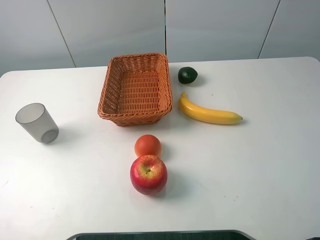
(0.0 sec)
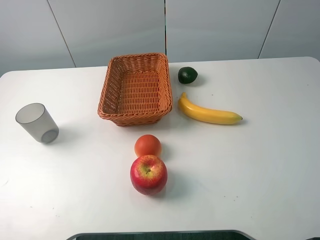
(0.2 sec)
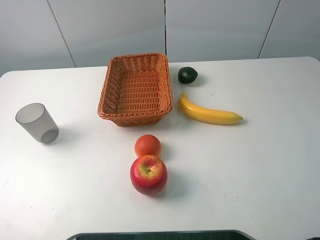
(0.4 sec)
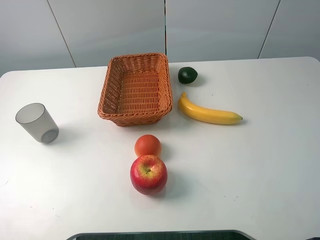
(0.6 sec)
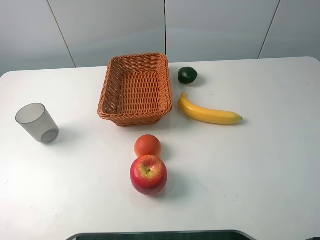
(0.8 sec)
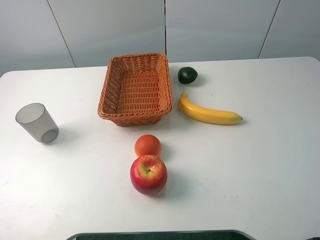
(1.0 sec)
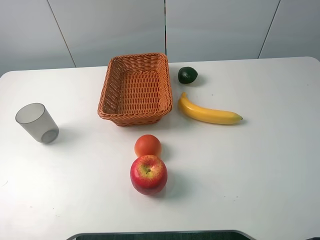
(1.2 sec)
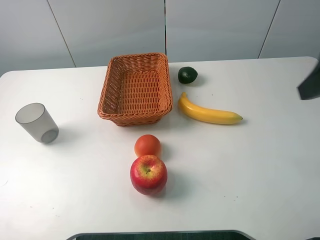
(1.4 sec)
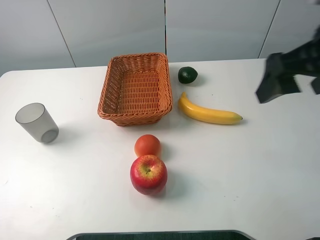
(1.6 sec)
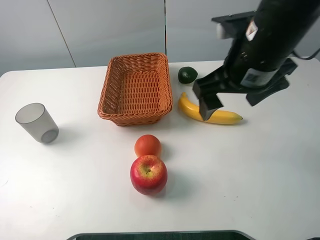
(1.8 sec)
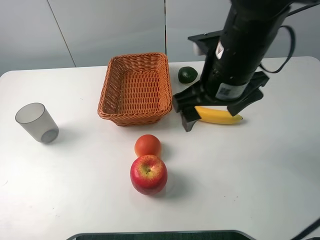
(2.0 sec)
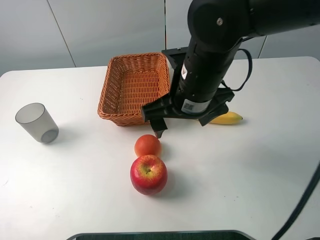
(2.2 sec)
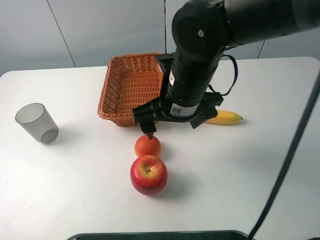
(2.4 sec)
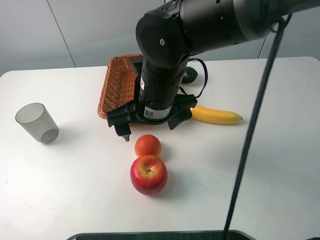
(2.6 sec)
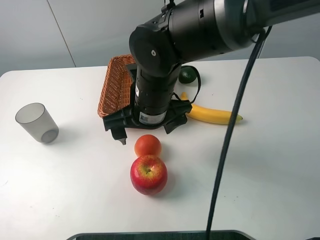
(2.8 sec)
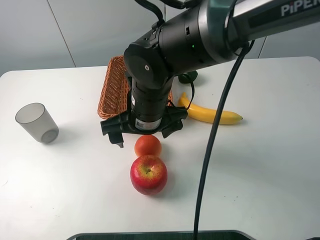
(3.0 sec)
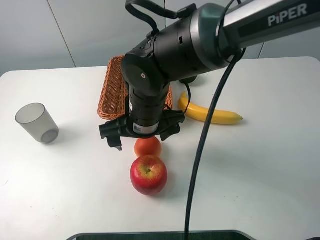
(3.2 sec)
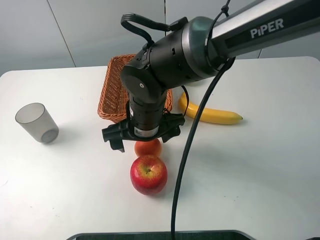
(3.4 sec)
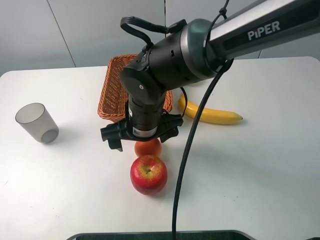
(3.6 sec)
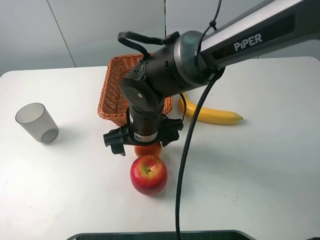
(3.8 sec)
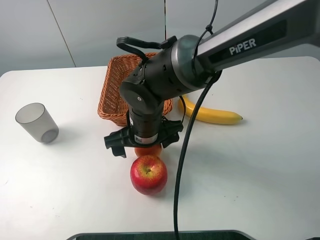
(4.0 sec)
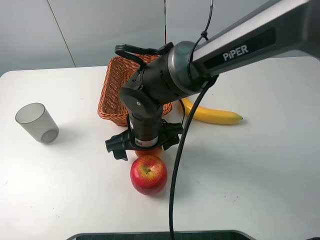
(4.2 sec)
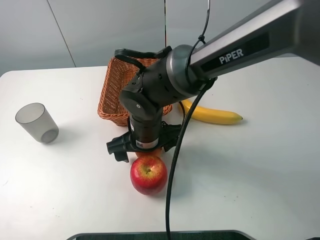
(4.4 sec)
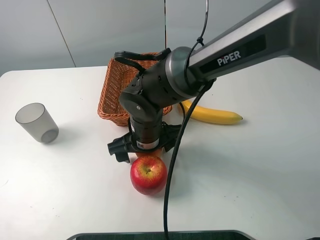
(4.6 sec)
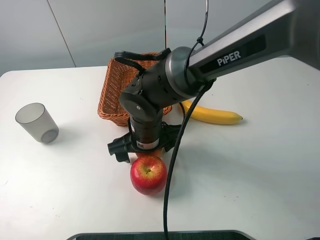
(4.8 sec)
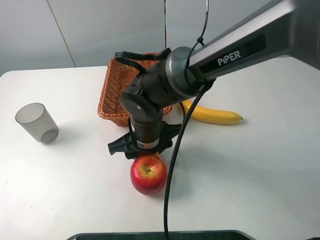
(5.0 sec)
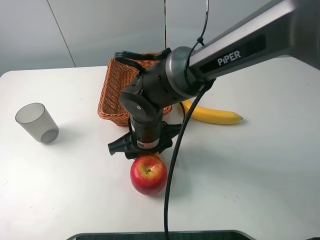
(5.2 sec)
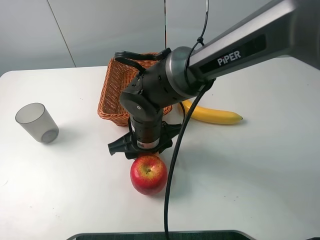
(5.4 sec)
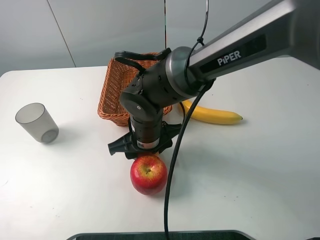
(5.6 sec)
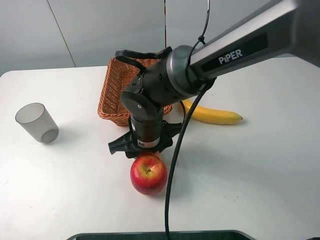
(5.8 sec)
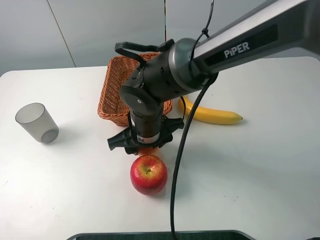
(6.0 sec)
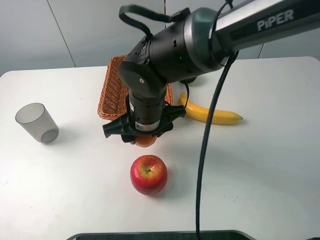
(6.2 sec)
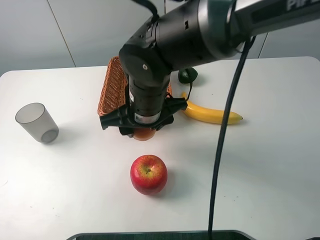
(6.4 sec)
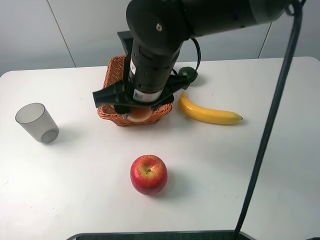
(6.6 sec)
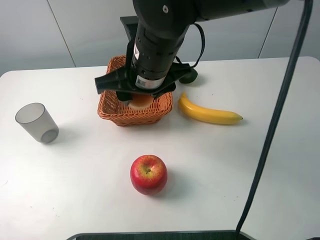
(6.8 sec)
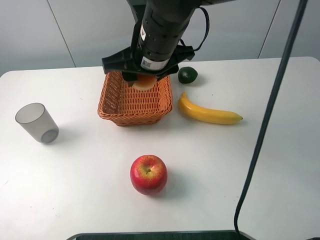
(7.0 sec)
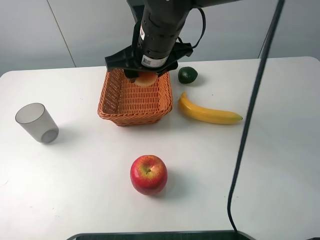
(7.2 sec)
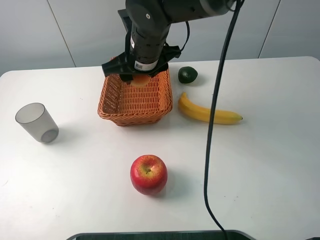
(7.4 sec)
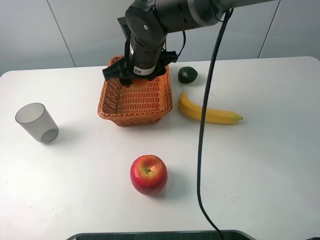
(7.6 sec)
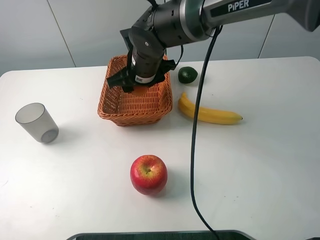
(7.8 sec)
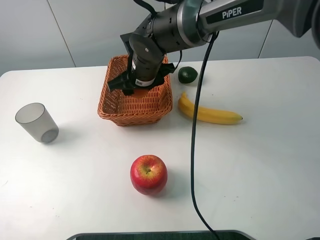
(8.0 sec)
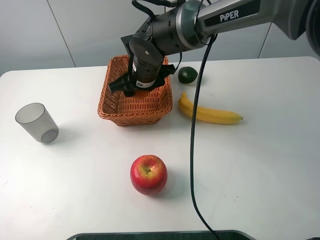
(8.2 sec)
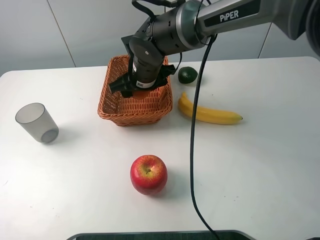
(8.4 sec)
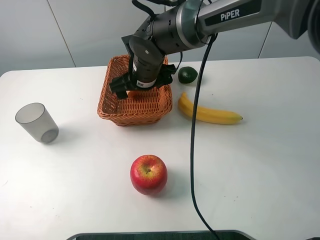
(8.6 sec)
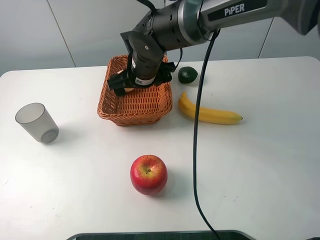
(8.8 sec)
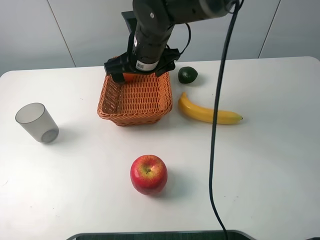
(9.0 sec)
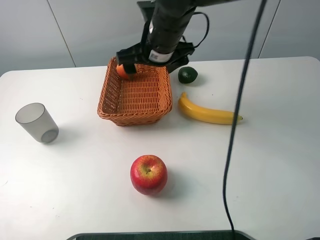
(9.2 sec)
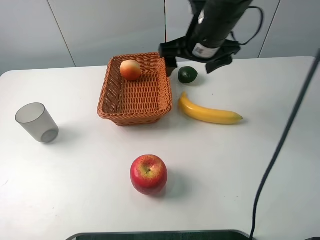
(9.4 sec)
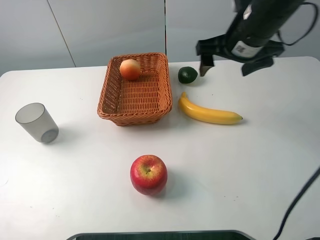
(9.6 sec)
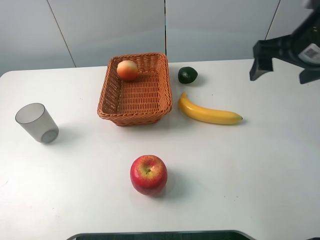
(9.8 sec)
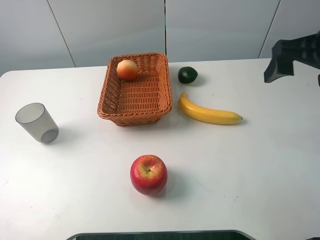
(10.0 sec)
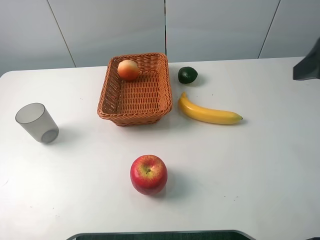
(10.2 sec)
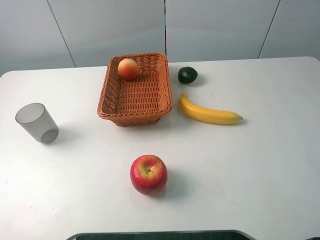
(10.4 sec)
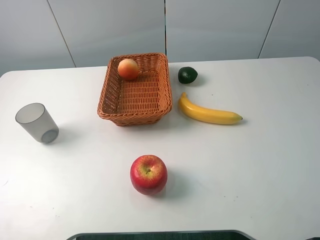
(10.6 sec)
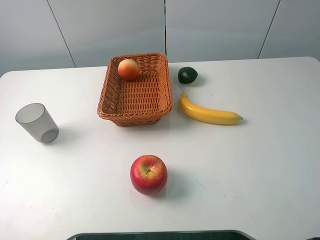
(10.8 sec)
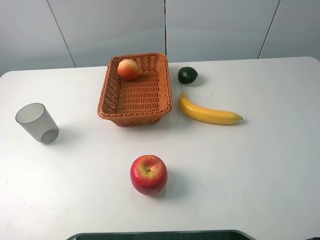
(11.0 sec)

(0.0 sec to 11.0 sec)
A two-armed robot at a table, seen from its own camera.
0.0 sec - 1.6 sec: The right gripper moves forward and to the left, some 20 cm.
1.6 sec - 3.2 sec: The right gripper is displaced to the left and downward by about 25 cm.
3.2 sec - 4.8 sec: The right gripper is displaced downward by approximately 5 cm.
4.8 sec - 6.2 sec: The right gripper shifts some 5 cm upward, and closes.
6.2 sec - 7.8 sec: The right gripper travels forward by some 10 cm.
7.8 sec - 9.4 sec: The right gripper heads to the right and upward, covering some 15 cm, and opens its fingers.
9.4 sec - 11.0 sec: The right gripper travels backward and to the right by about 35 cm.

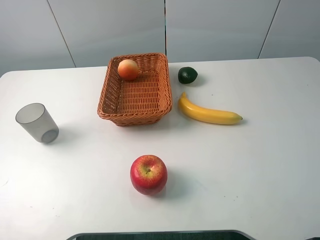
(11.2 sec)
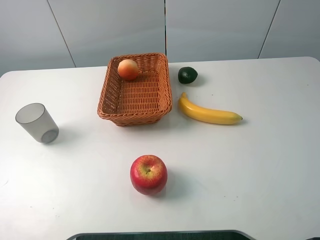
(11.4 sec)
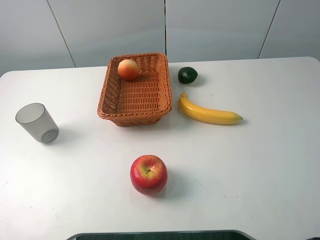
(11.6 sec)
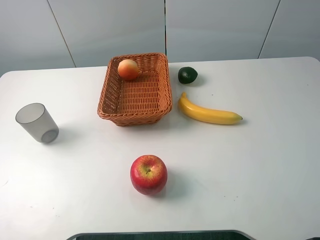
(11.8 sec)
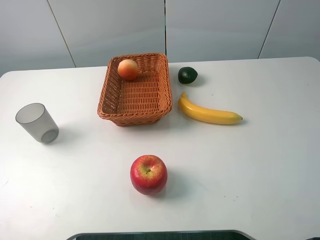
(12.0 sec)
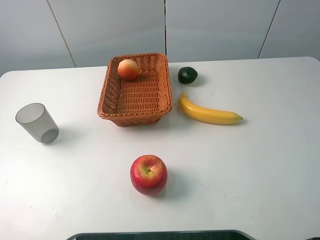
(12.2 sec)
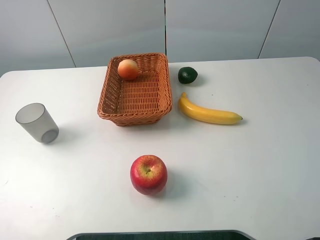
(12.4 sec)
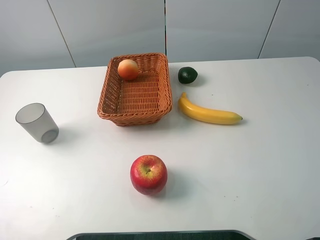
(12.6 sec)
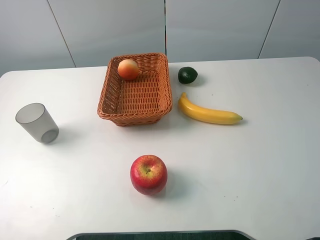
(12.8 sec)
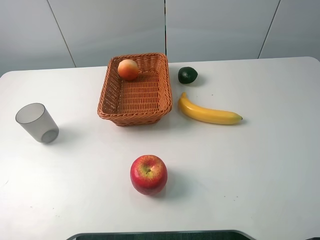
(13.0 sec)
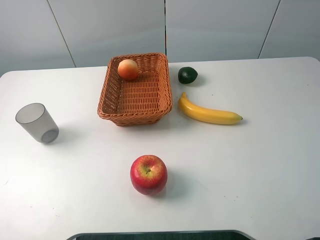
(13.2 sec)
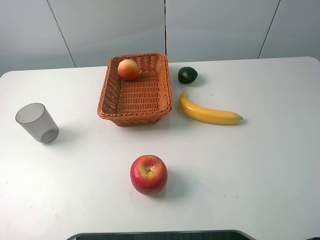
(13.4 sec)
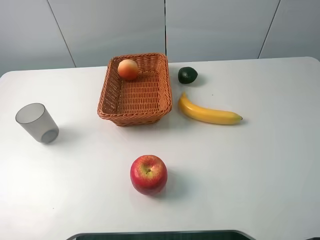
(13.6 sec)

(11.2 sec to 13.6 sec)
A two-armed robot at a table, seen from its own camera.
12.4 sec - 13.6 sec: Both grippers stay put.
